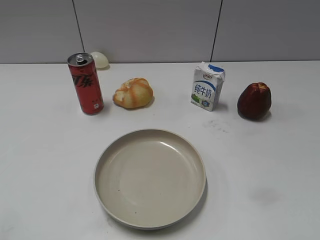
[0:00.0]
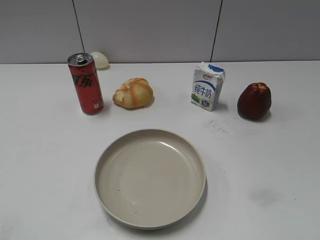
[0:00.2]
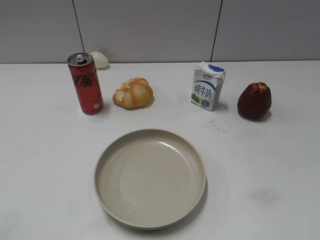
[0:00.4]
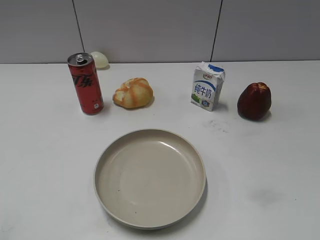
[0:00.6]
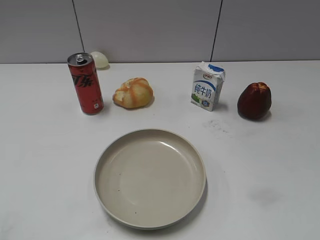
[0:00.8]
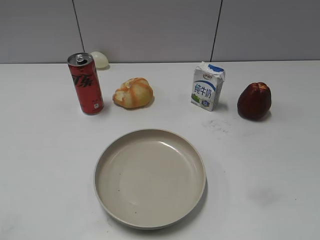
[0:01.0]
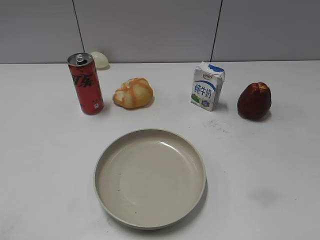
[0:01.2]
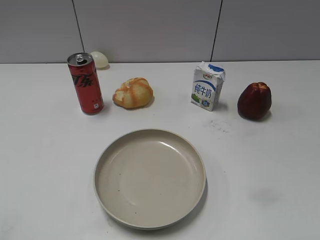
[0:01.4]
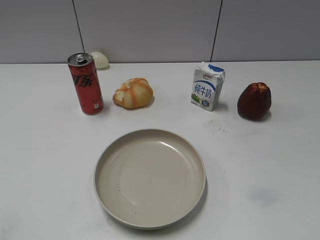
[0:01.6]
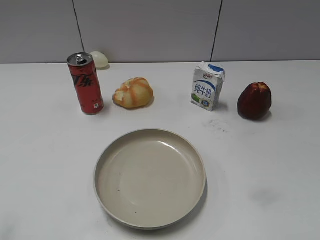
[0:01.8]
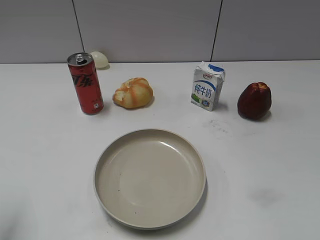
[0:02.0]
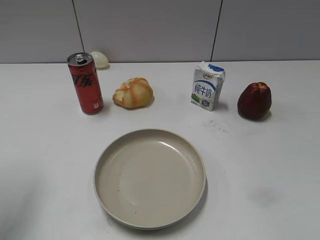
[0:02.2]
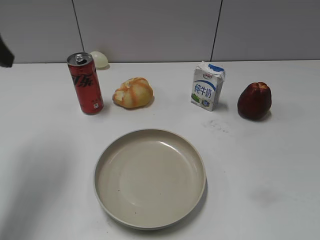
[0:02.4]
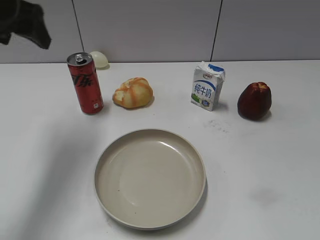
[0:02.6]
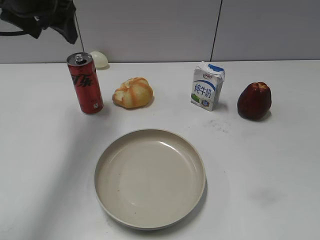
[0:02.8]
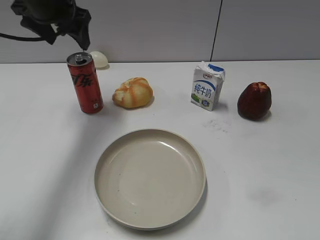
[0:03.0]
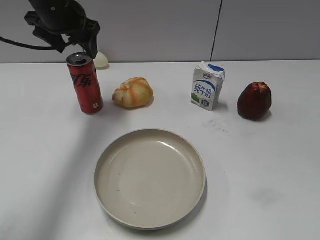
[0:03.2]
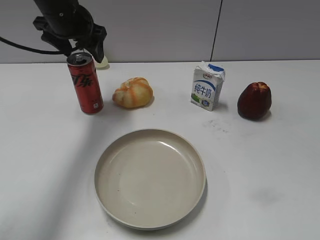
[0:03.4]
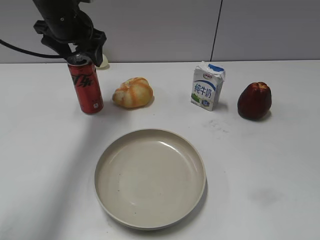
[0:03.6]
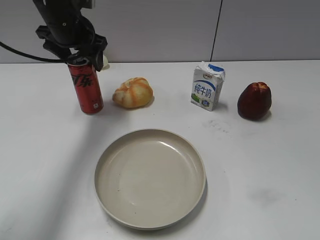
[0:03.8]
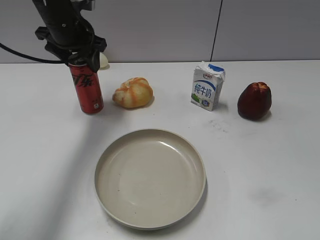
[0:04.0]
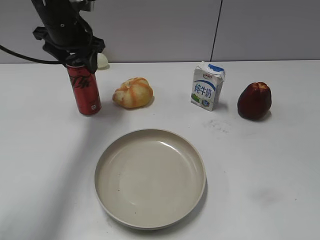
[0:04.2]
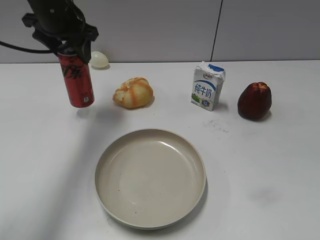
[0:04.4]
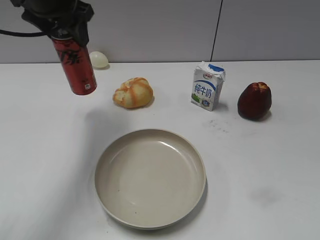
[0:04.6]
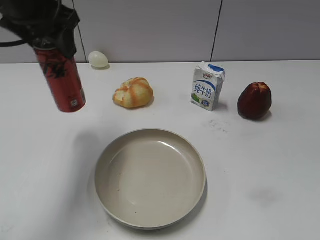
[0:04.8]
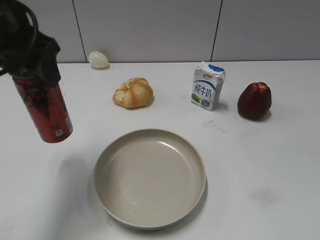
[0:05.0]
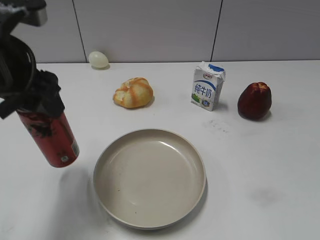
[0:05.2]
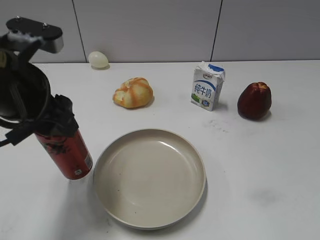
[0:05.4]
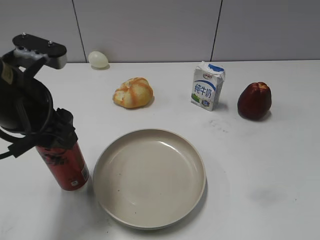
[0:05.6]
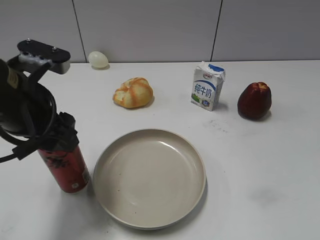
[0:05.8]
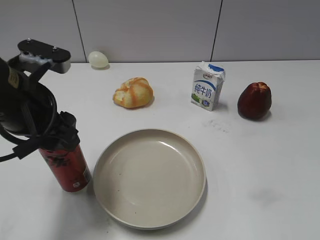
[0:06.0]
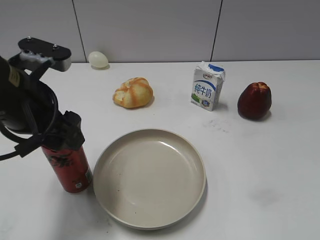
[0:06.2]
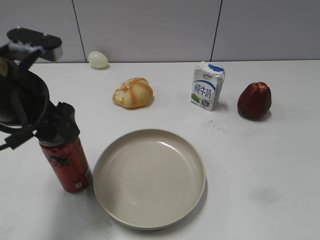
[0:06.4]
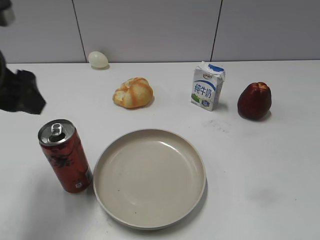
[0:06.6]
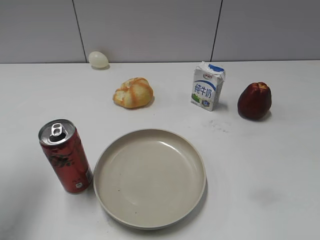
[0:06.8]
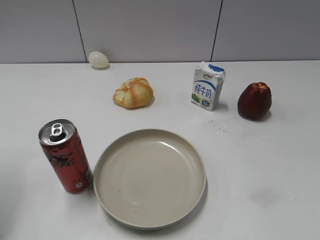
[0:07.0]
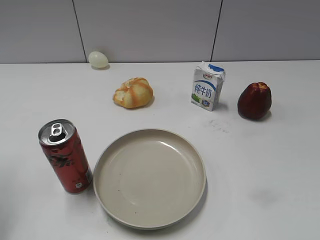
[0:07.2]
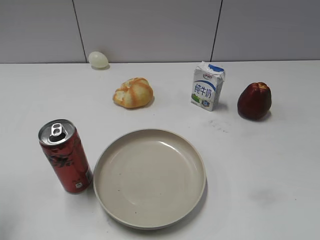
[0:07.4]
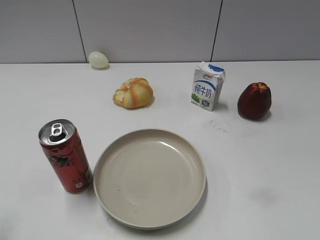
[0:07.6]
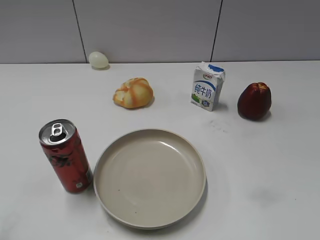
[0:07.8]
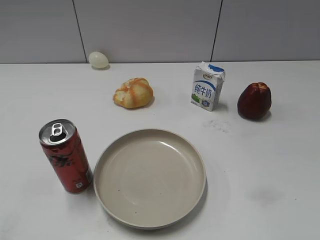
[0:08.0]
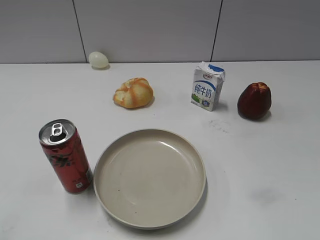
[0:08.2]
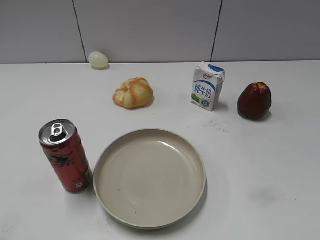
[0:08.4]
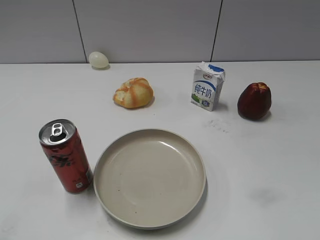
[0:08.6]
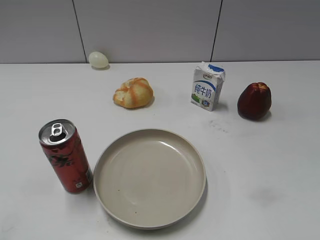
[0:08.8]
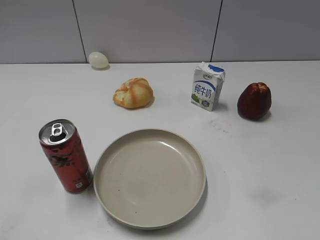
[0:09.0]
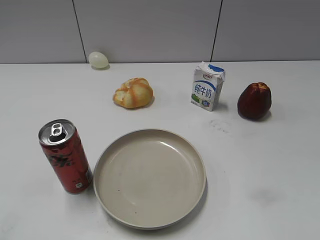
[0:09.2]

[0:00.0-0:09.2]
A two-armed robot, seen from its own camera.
Step, 0:01.6 to 0:04.0: Grasp the cola with left gripper.
Step, 0:04.4 to 0:06.4: Place the cola on the table with left gripper.
0:01.6 to 0:03.0: The left gripper travels forward by approximately 40 cm, and opens its fingers.
0:03.0 to 0:04.6: The left gripper closes its fingers.
0:04.6 to 0:06.2: The left gripper shifts roughly 20 cm backward, and opens.
0:06.2 to 0:07.6: The left gripper travels to the left and backward by some 15 cm, and opens, then closes again.
